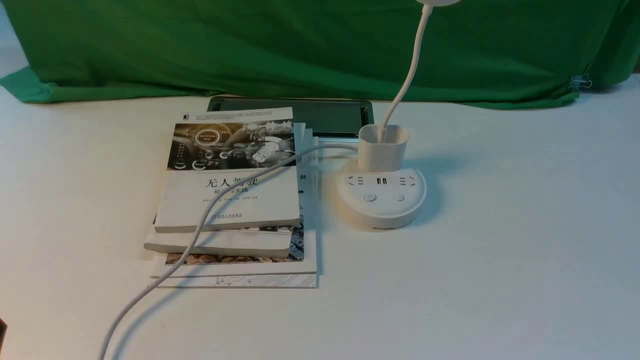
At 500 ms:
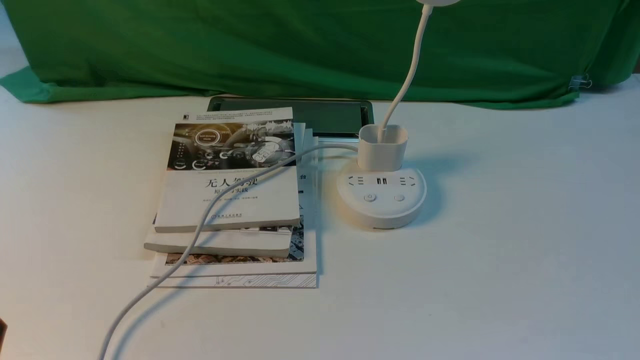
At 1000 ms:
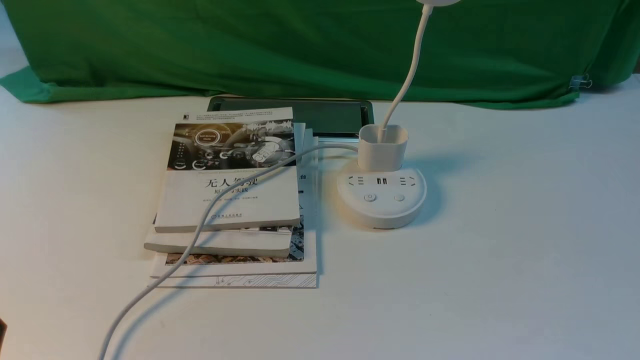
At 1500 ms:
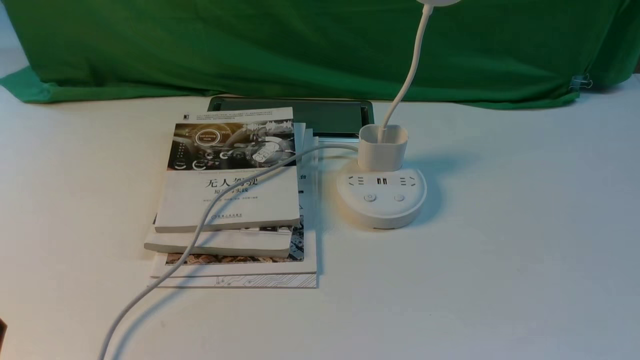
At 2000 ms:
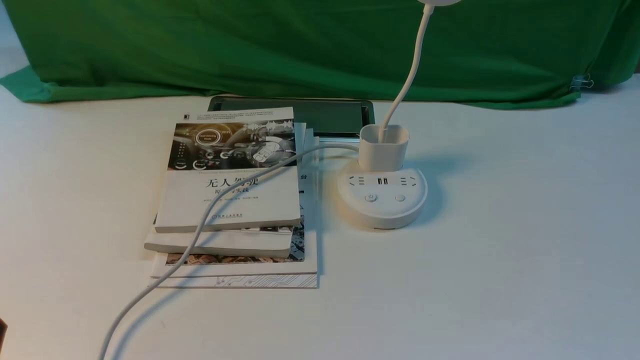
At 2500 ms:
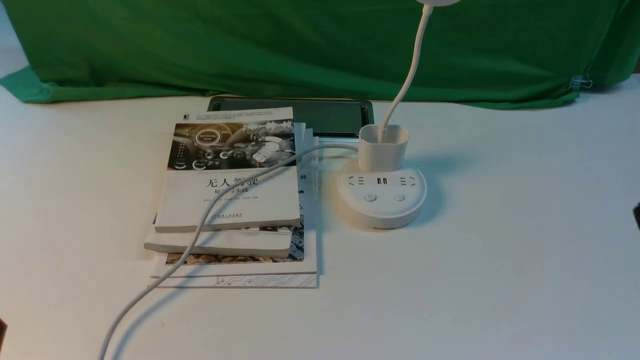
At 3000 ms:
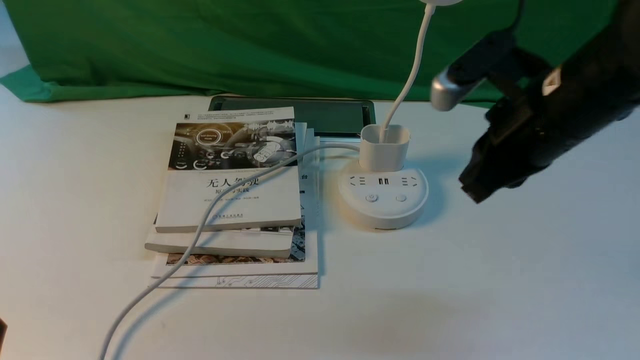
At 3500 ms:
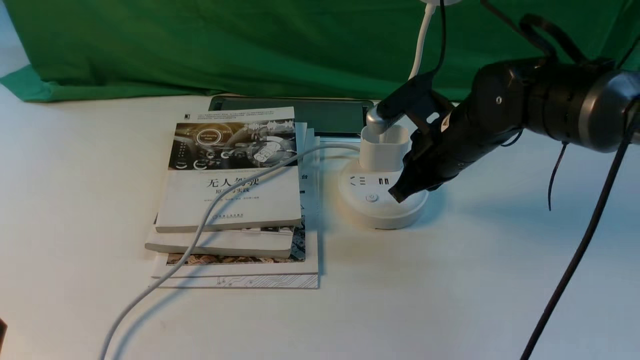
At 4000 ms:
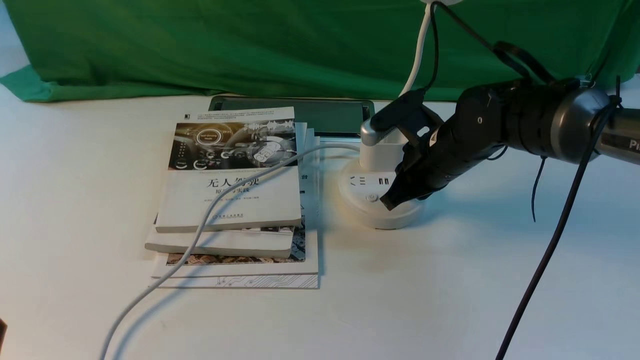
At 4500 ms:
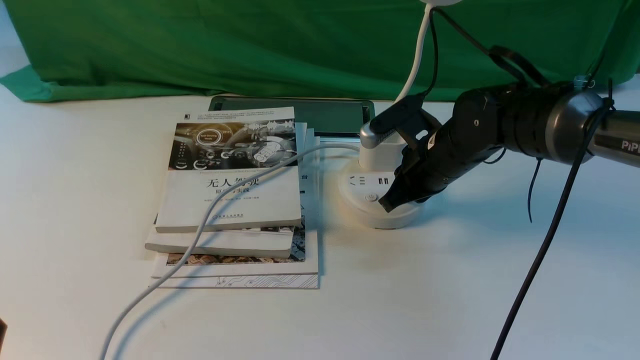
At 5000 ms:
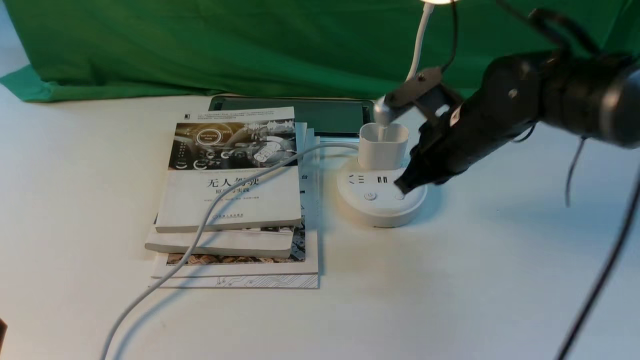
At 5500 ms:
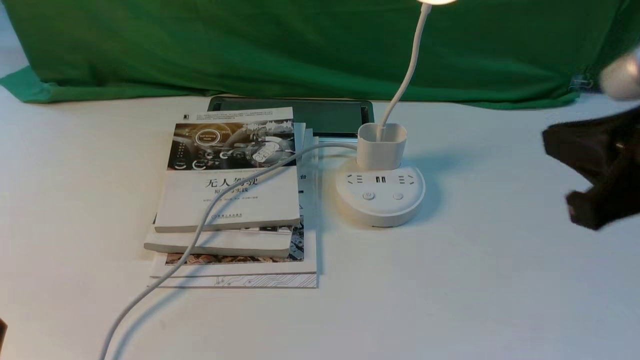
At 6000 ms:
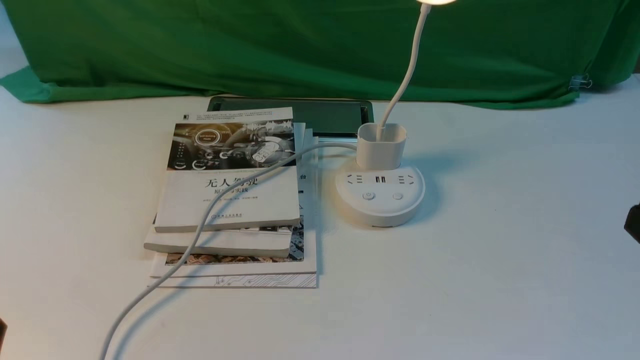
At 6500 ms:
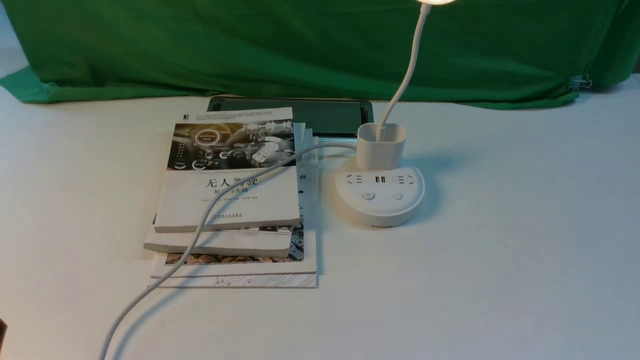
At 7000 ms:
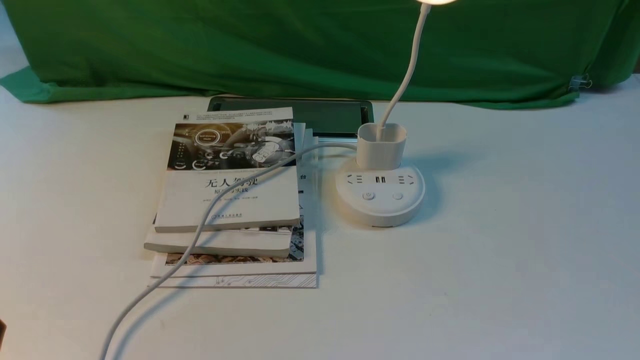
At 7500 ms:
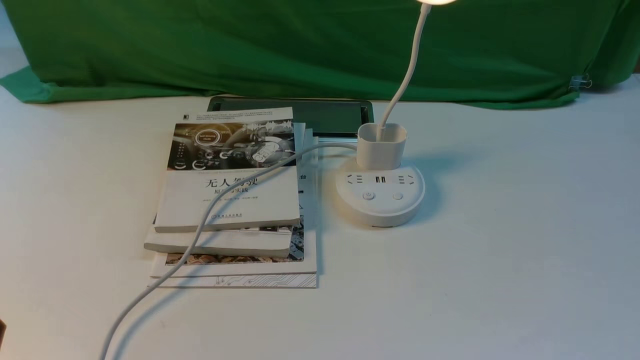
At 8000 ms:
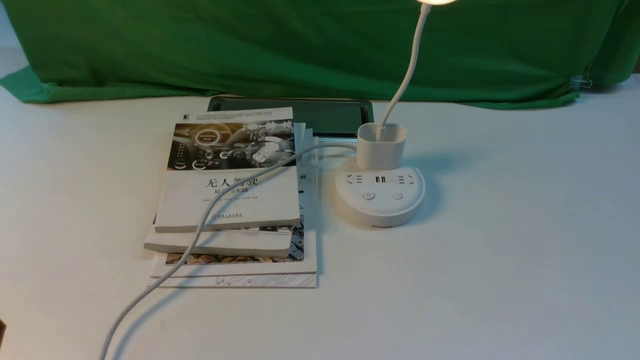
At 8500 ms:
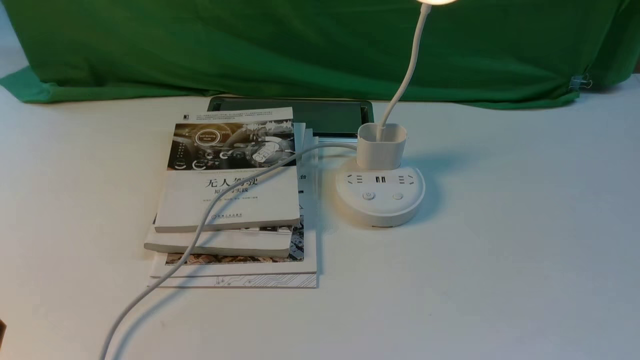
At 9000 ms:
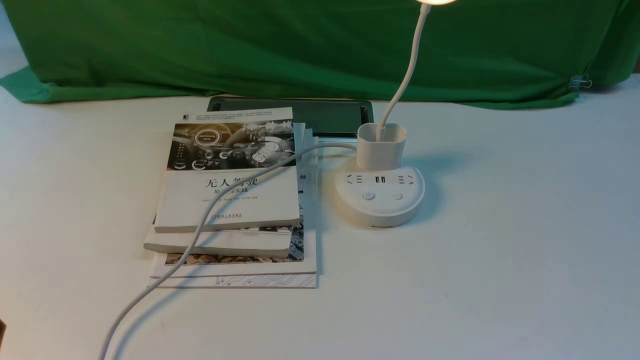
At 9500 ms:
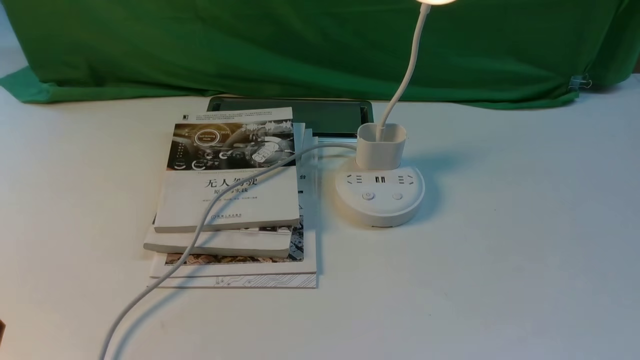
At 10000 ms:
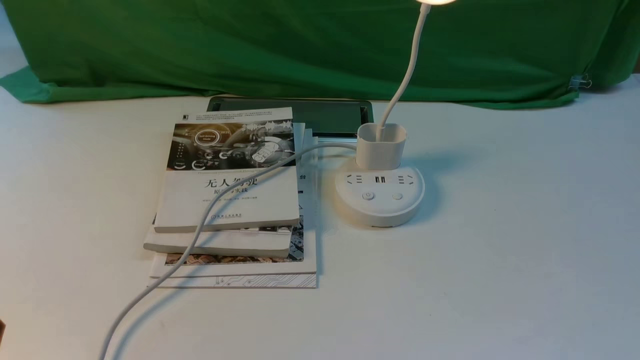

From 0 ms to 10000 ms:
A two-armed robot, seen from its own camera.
Step, from 0 ms to 5000 ms: use the right arm to press the button switch on the lamp holder.
From 2000 ms to 4000 ms: The right gripper is displaced forward and to the left by about 40 cm, and closes.
From 4000 ms to 6000 ms: The right gripper heads backward, to the right and upward, covering roughly 35 cm.
From 8000 ms to 10000 ms: Both grippers stay put.
